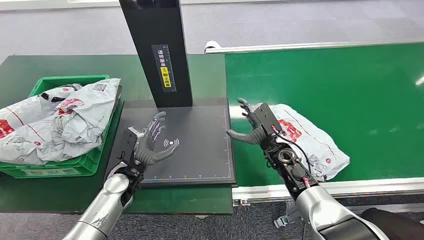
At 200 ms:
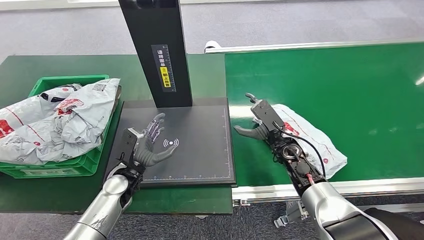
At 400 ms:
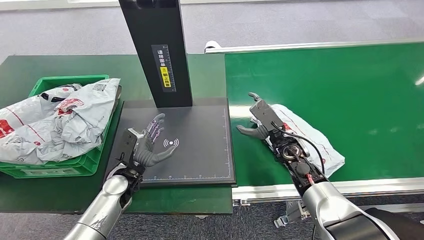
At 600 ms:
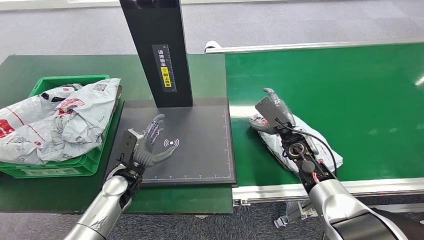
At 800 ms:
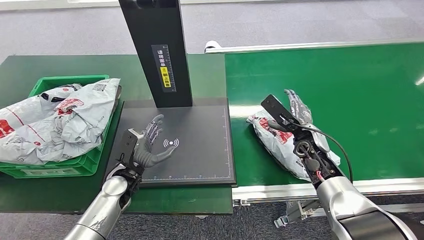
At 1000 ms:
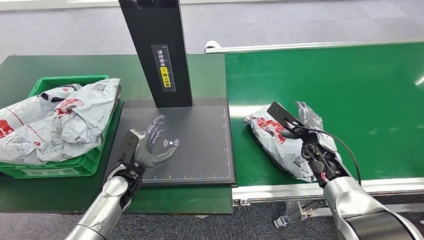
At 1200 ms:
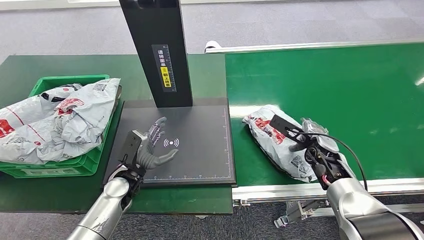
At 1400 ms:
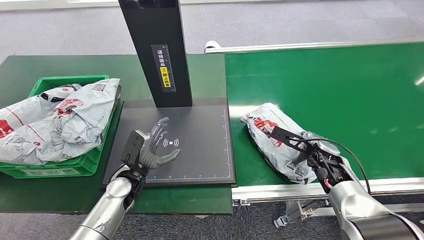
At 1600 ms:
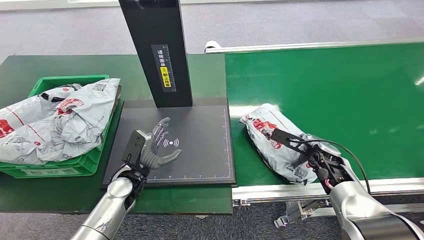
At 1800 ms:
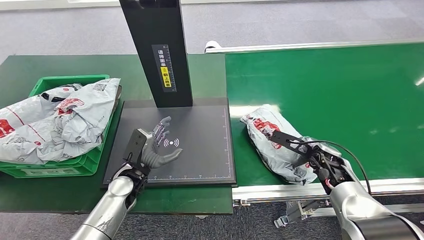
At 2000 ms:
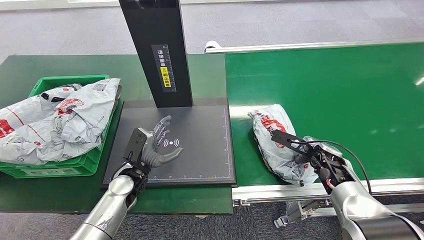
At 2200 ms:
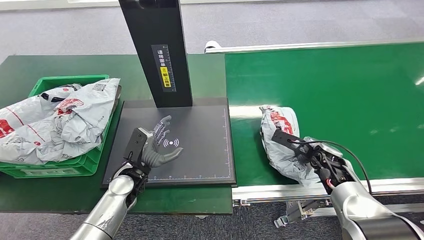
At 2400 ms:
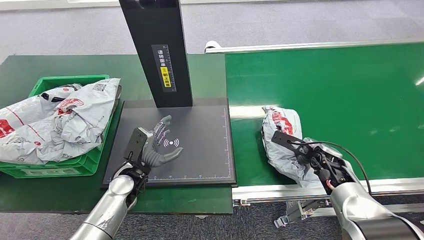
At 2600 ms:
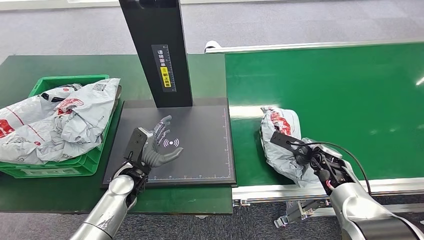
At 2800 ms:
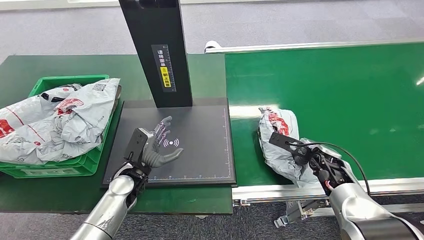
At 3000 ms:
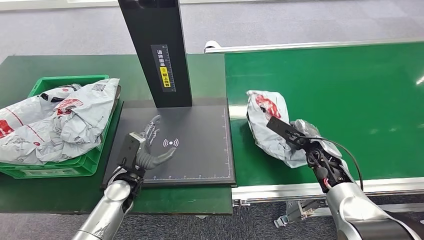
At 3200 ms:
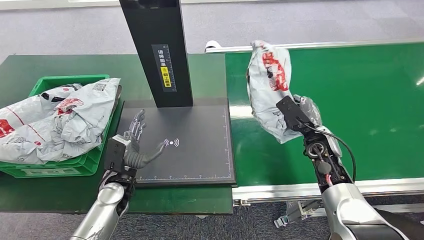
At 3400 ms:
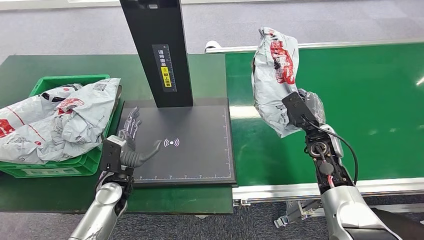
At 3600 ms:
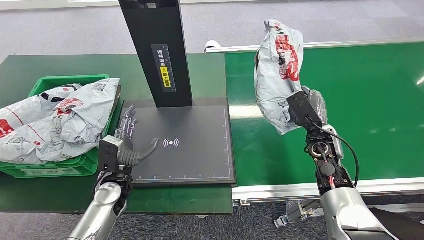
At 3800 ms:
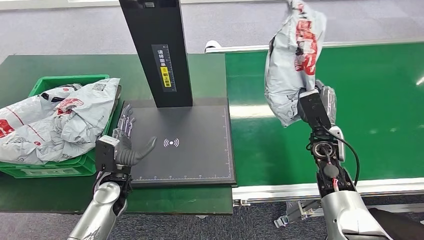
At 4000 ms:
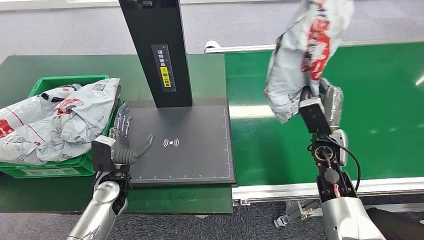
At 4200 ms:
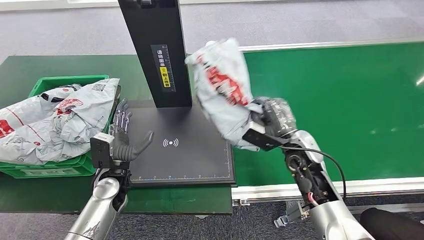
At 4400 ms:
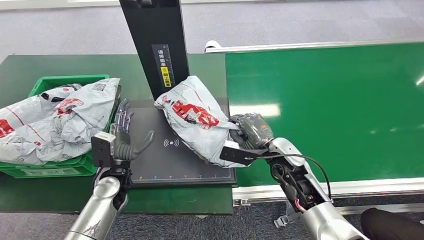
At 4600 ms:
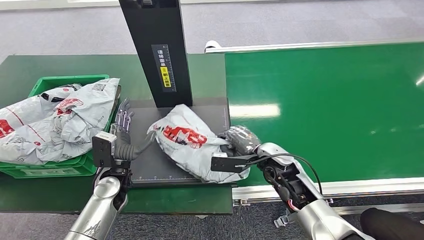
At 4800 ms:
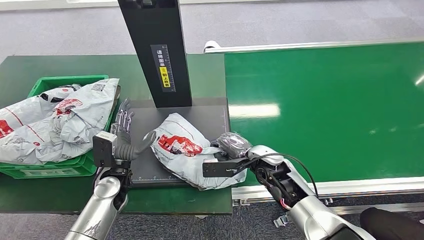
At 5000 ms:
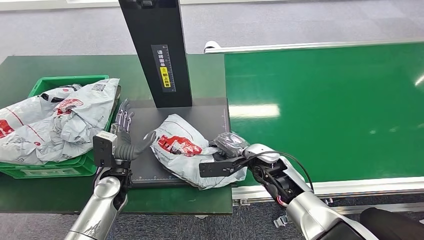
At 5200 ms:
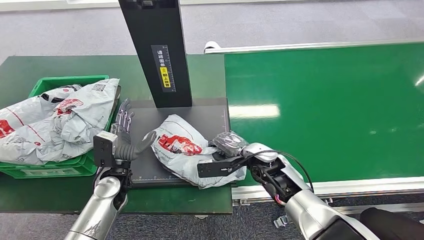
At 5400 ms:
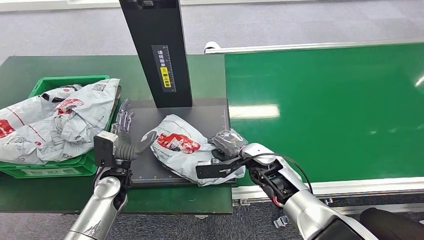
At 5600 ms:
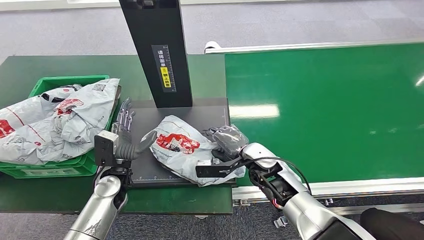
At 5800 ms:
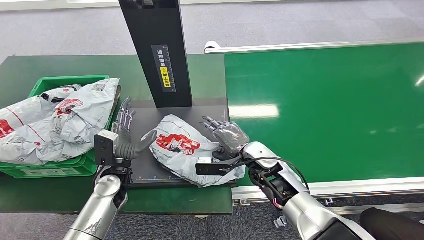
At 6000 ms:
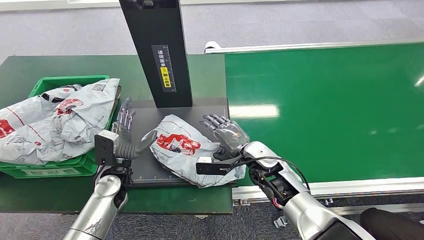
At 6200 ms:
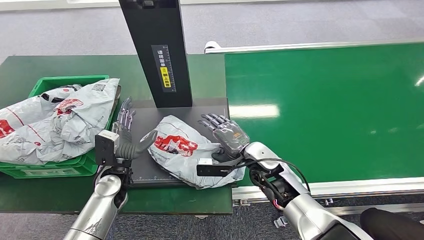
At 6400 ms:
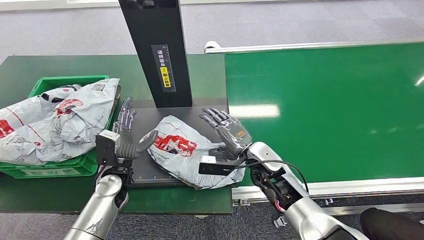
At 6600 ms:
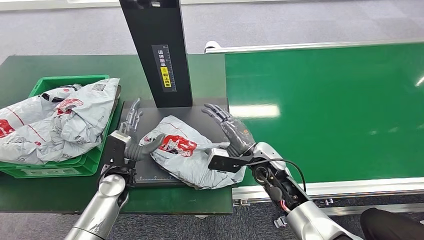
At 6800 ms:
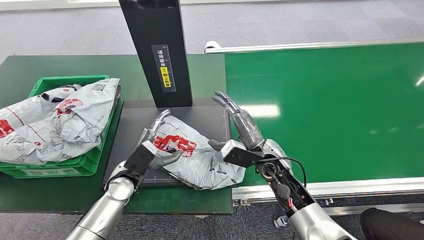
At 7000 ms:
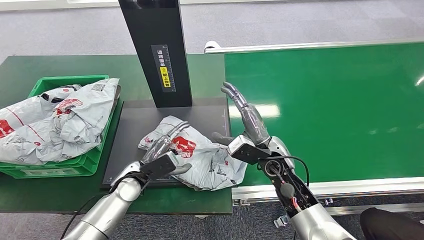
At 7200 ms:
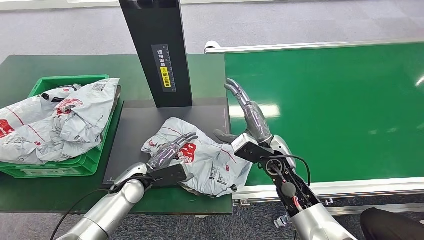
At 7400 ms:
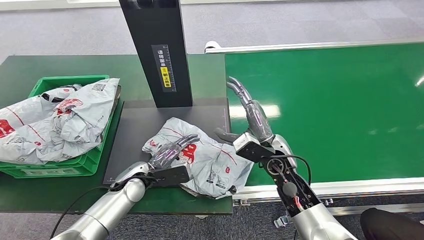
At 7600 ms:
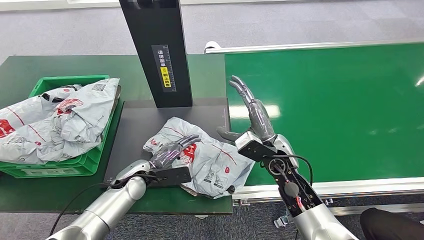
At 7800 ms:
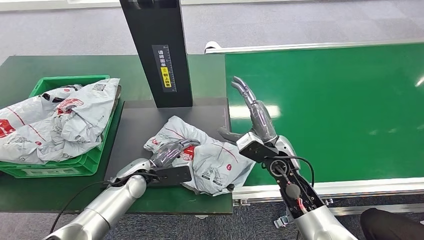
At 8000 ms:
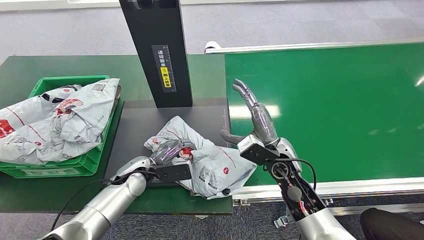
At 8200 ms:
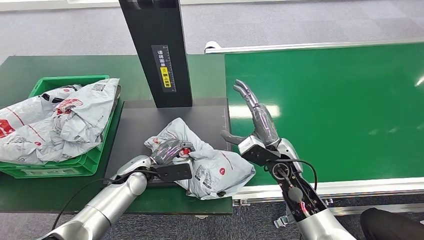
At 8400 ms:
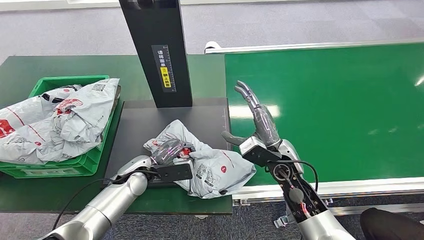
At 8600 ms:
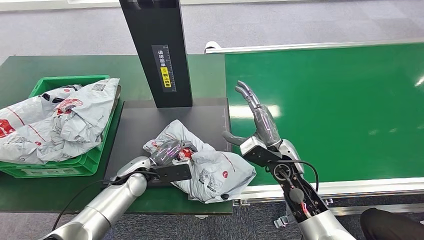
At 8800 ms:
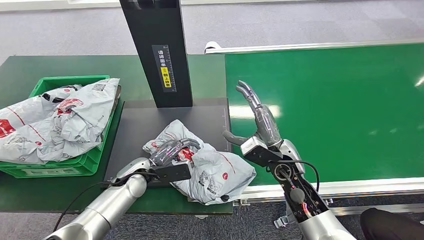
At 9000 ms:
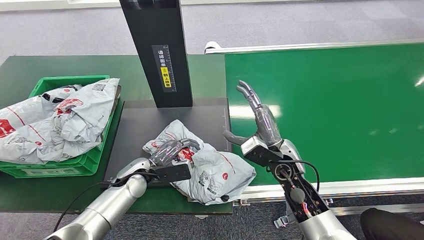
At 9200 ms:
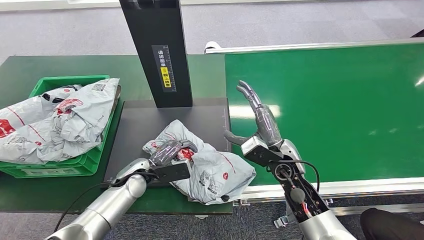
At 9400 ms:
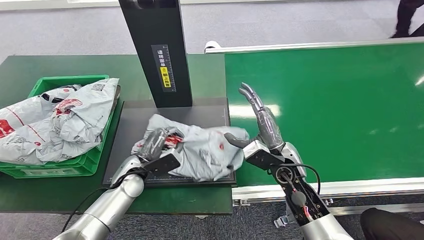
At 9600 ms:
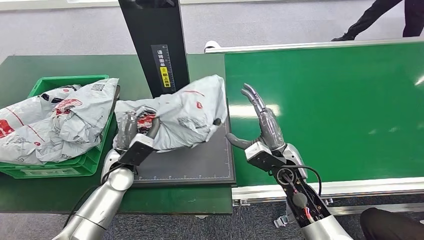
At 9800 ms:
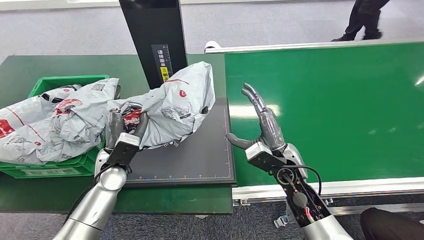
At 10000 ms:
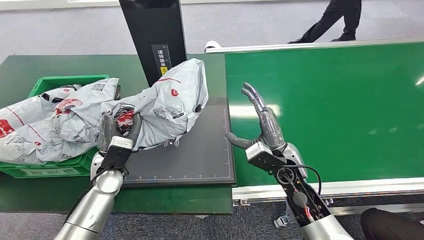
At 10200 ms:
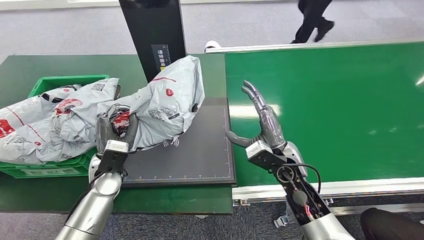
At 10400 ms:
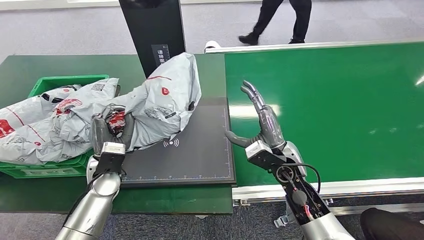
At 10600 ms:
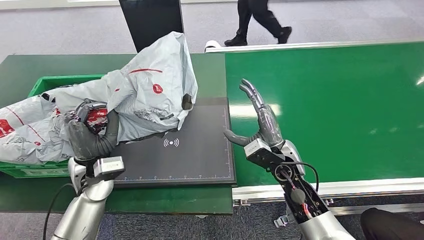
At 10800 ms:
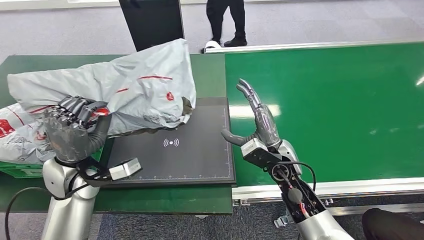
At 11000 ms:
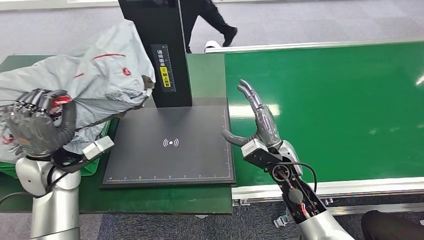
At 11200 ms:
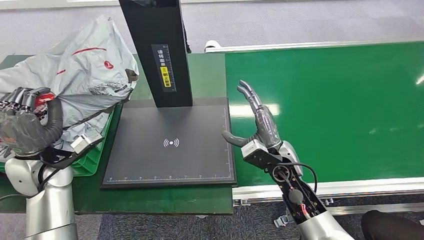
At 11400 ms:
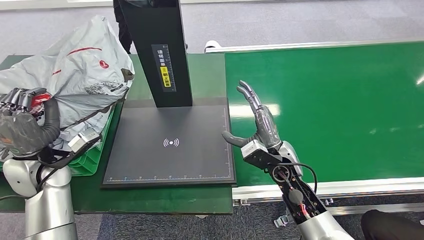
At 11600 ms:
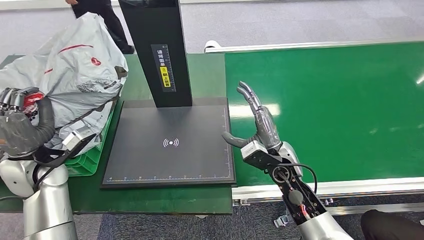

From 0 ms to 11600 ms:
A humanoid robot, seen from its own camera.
Step, from 0 ms to 3800 ms: Pick up the package from the conveyor belt.
Step, from 4000 ms to 7200 ms: Place the package onto the inbound machine.
Step, from 7600 ms to 10400 ms: Pick up the package from the inbound machine.
From 1400 ms to 2800 ms: The hands move only a little.
From 4400 ms to 5800 ms: The right hand heads to the left, covering approximately 5 cm.
From 7200 ms to 8800 ms: There are only small adjustments of the hands.

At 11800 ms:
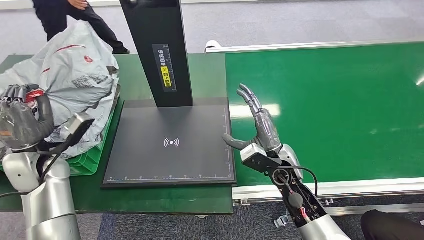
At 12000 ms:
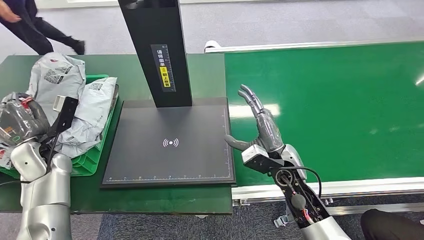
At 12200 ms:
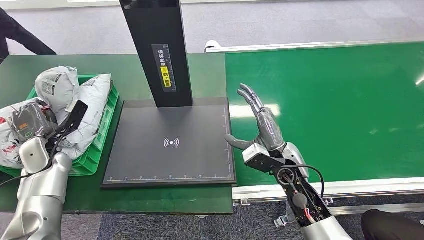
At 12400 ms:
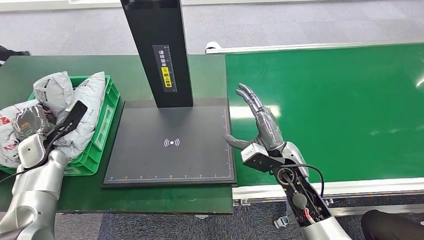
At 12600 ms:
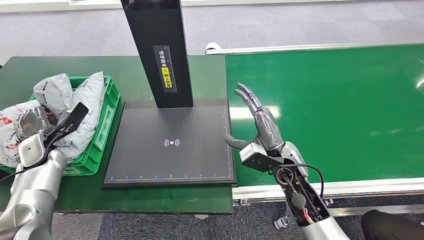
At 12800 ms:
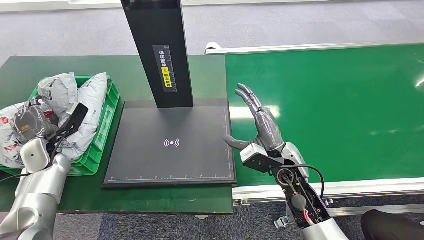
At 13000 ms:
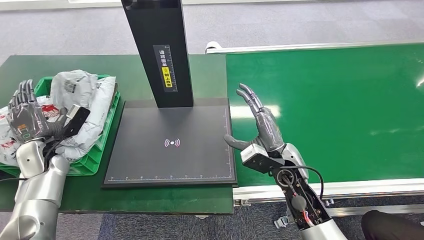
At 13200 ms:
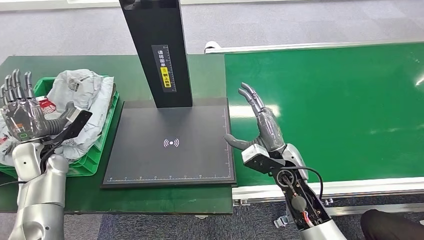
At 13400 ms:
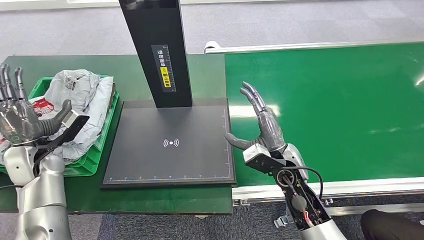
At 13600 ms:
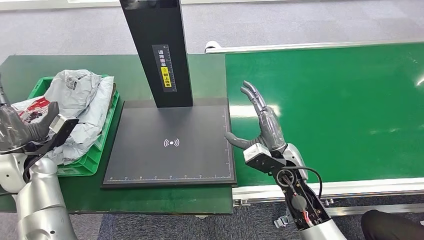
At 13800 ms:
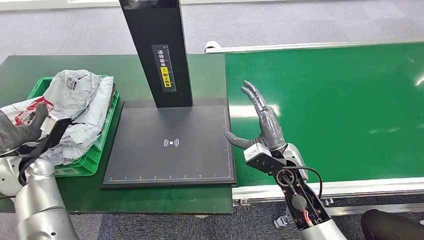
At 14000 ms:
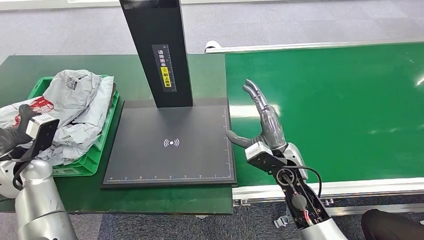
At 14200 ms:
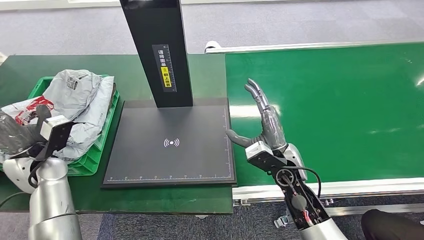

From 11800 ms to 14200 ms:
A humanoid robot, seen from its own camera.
Step, from 11800 ms to 14200 ms: Place the package into the parcel locker.
From 13000 ms to 14200 ms: The left hand shifts some 10 cm to the right and upward.
